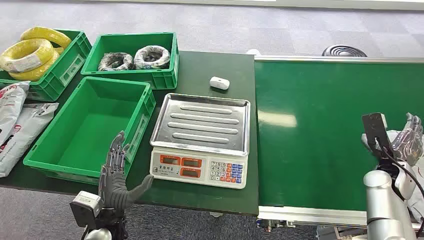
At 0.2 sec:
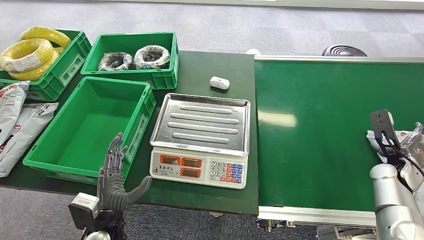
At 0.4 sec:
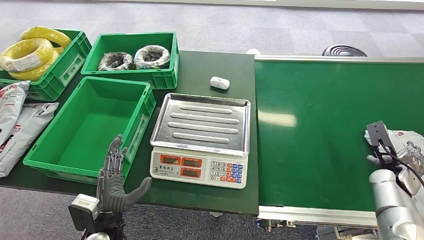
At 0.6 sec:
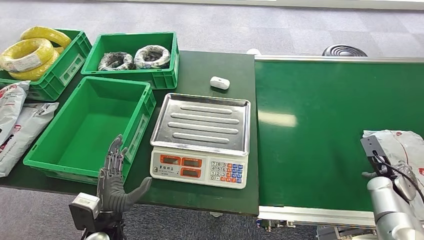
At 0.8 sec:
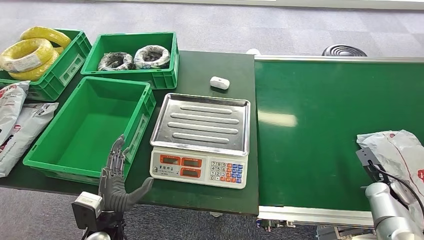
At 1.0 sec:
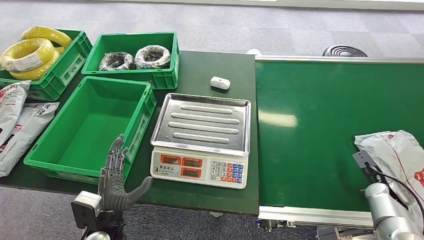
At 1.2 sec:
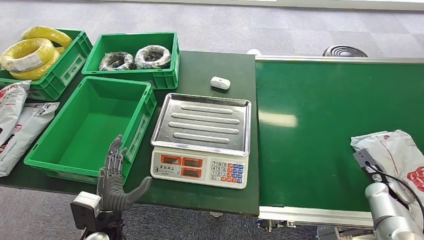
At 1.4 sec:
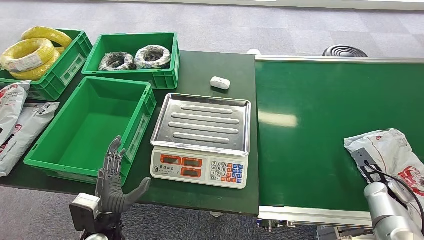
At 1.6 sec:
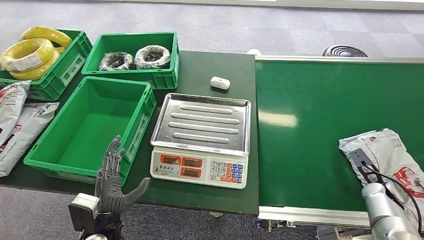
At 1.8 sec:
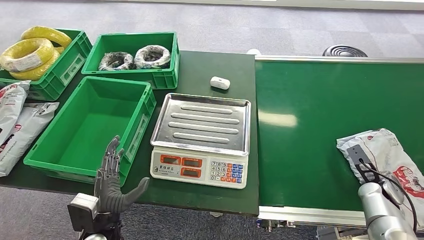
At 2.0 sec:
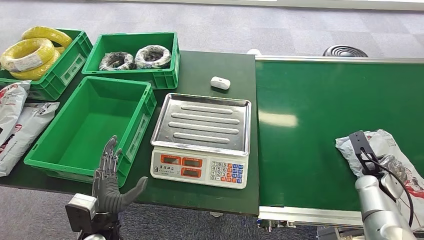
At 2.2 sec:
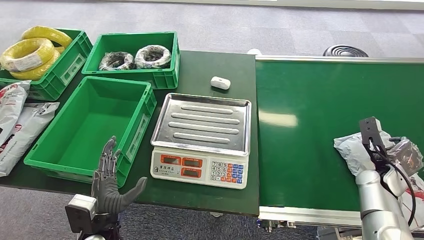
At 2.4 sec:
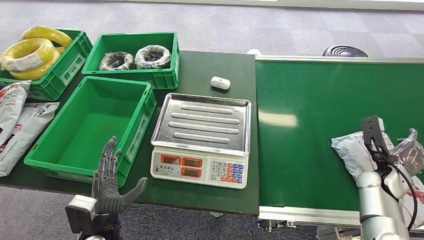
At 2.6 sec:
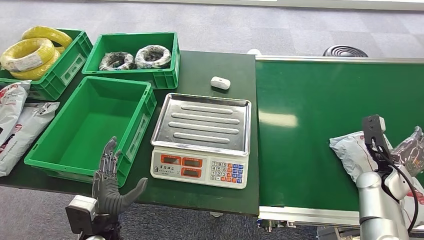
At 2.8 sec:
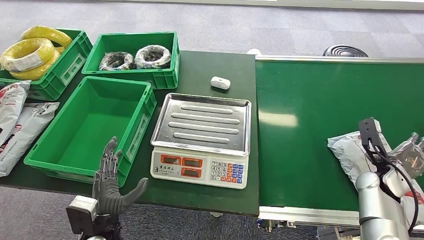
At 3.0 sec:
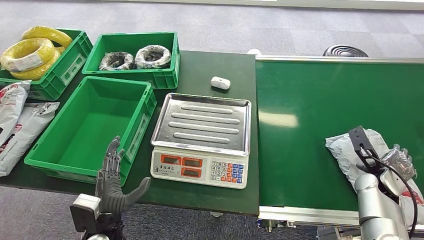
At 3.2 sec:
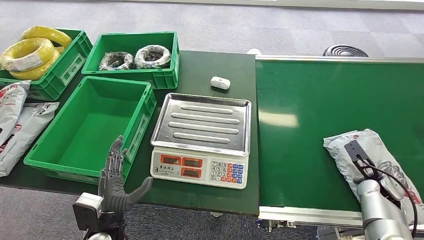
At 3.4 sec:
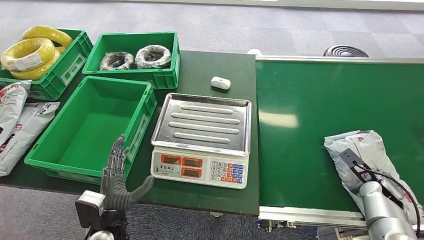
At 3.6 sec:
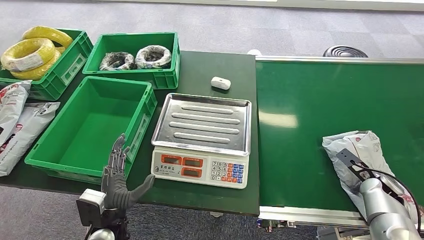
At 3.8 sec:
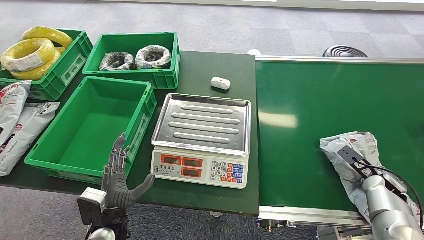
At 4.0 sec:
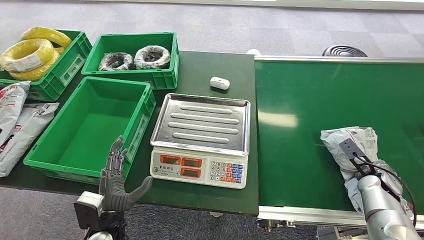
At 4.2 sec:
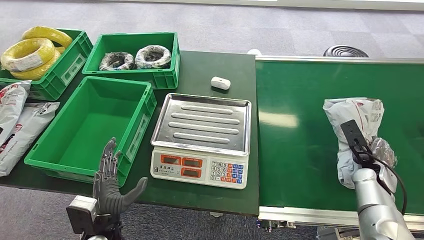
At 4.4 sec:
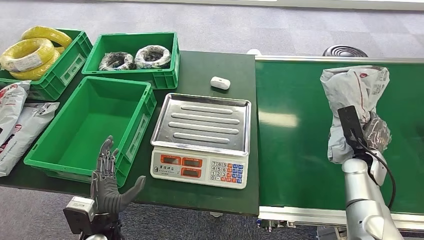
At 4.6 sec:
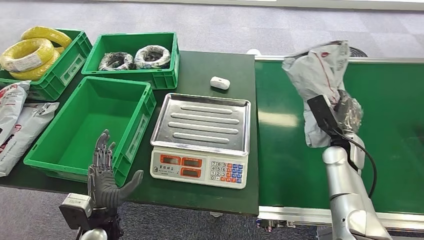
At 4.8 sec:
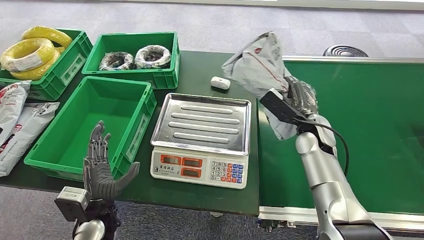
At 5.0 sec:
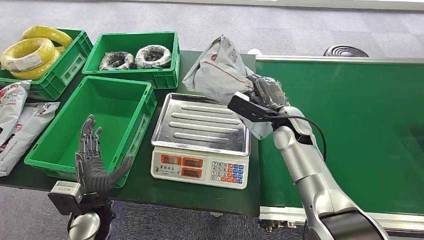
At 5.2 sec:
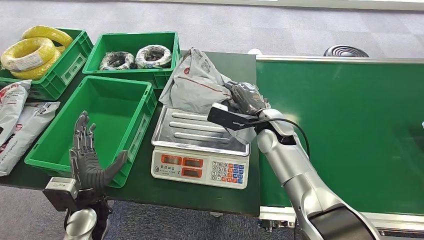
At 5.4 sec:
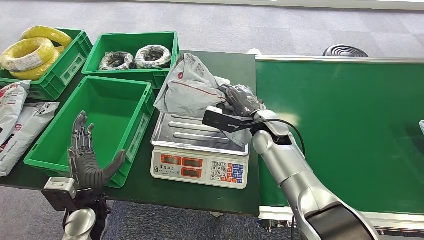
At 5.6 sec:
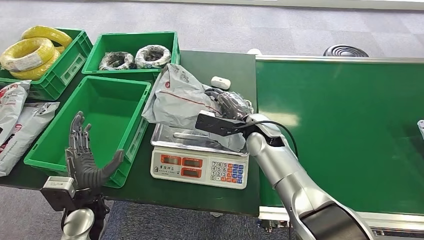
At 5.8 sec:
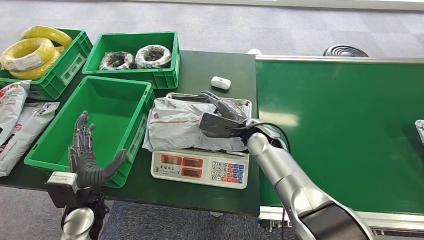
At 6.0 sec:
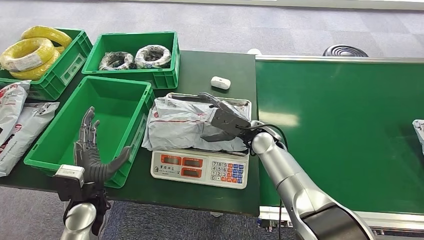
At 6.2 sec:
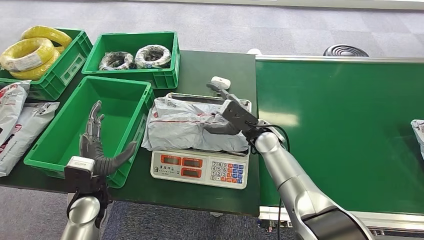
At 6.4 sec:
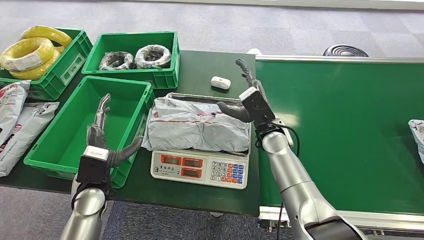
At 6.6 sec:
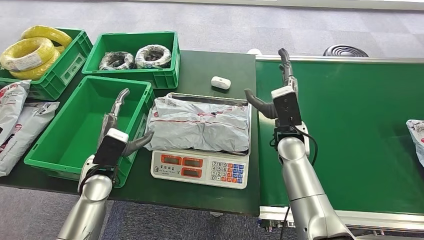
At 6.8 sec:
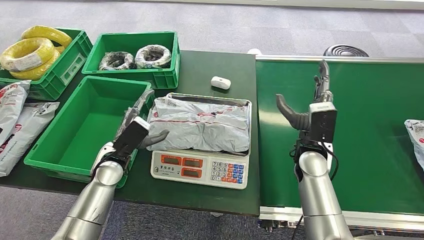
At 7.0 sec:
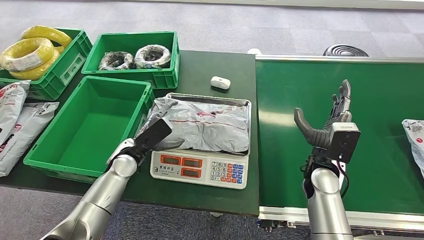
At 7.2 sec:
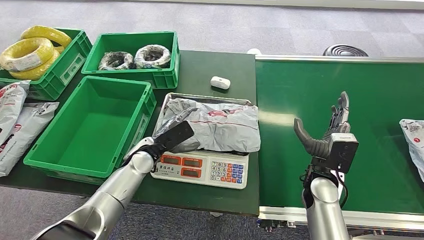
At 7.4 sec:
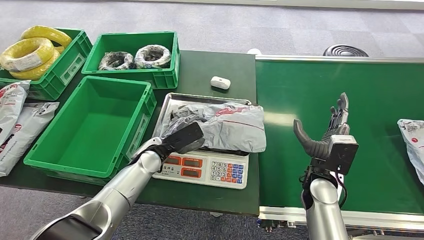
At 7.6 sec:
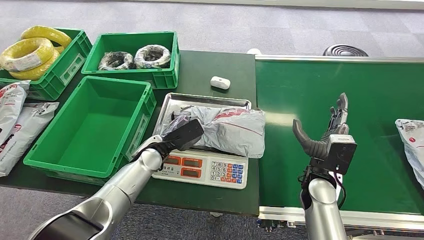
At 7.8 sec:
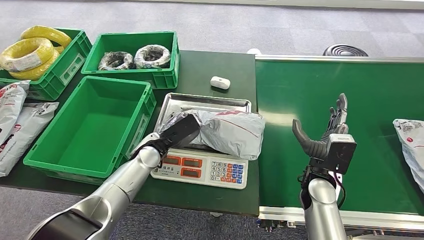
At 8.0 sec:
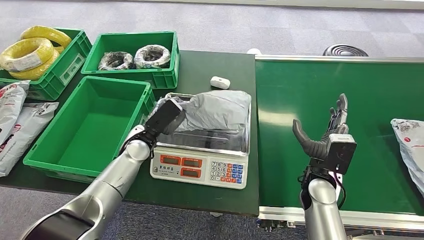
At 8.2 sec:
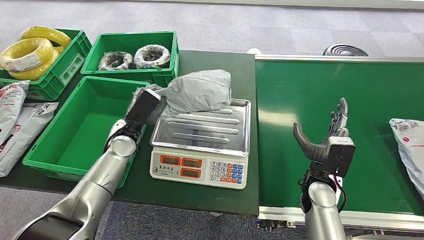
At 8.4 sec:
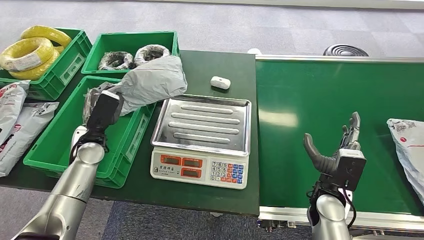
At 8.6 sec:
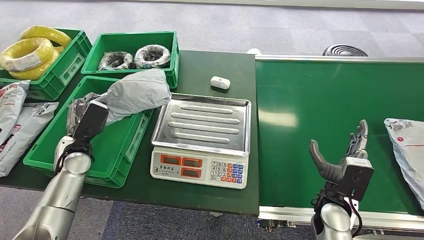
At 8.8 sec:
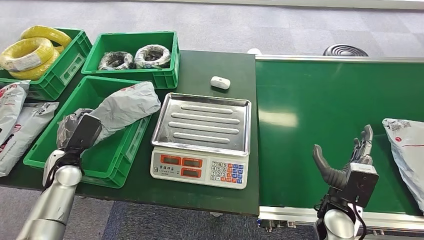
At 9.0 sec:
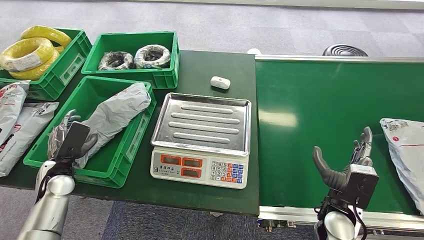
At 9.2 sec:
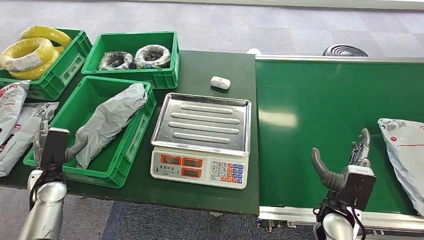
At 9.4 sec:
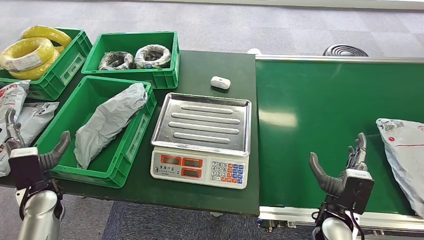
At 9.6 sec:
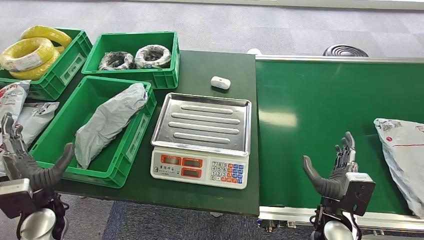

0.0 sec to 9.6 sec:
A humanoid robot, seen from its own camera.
Step, 0.0 sec to 4.2 sec: Pick up the package from the conveyor belt.
Step, 4.6 sec to 6.6 sec: Place the package onto the inbound machine.
Step, 8.0 sec to 8.6 sec: Pick up the package from the inbound machine.
Step, 8.8 sec to 9.6 sec: Place the package into the parcel locker.
3.2 sec to 4.8 sec: The right hand heads to the left, upward and forward, covering roughly 25 cm.
